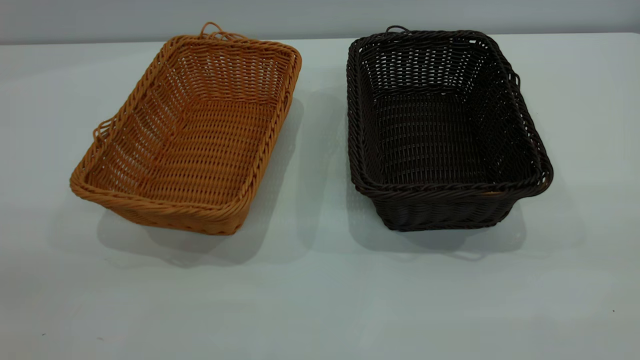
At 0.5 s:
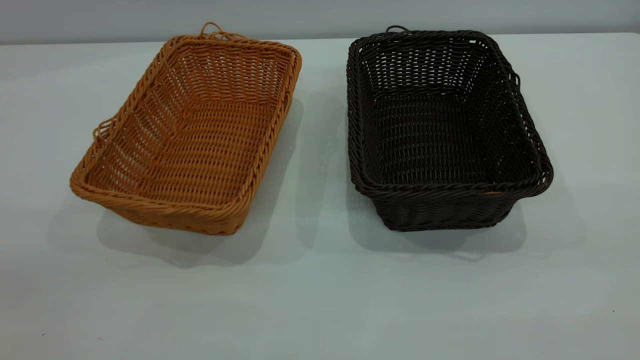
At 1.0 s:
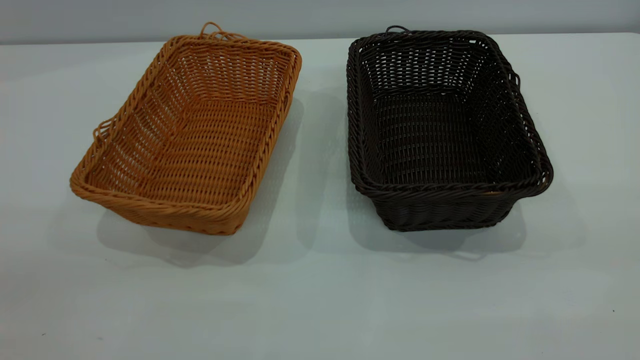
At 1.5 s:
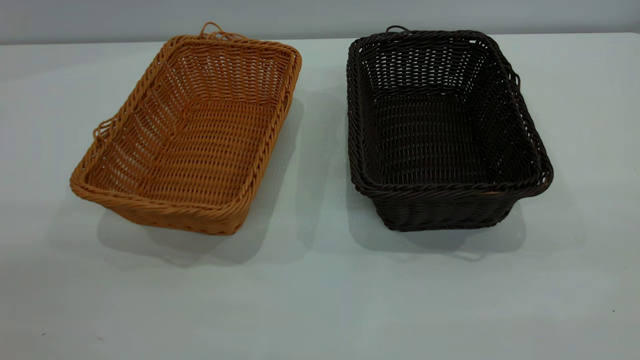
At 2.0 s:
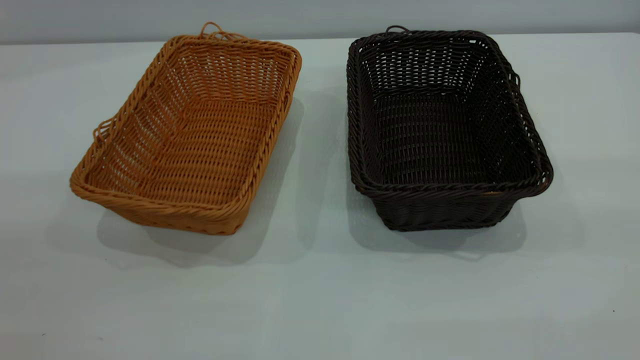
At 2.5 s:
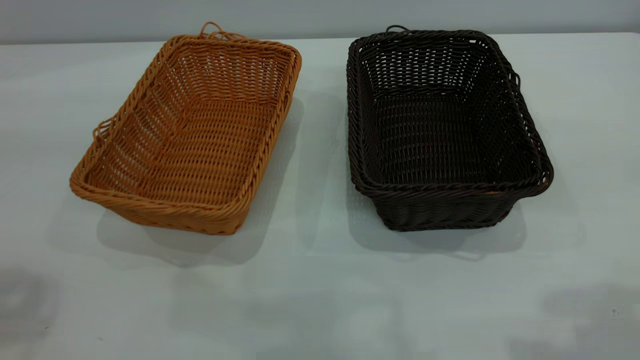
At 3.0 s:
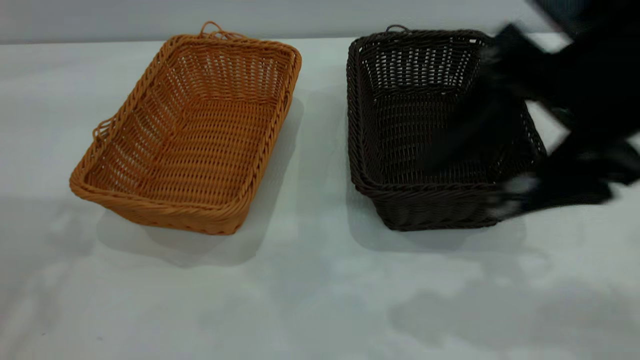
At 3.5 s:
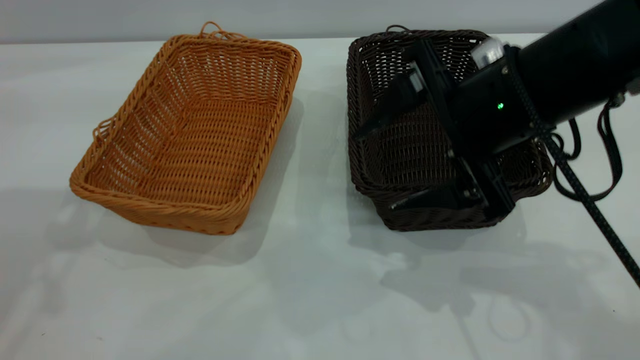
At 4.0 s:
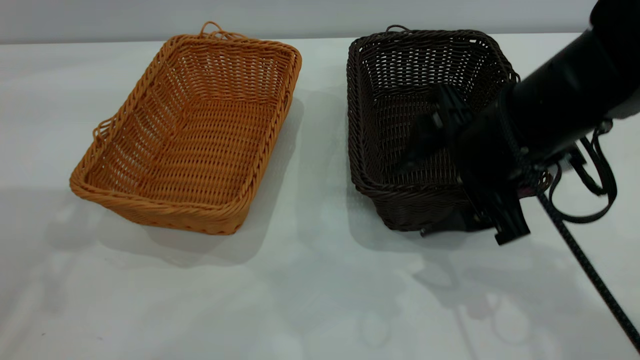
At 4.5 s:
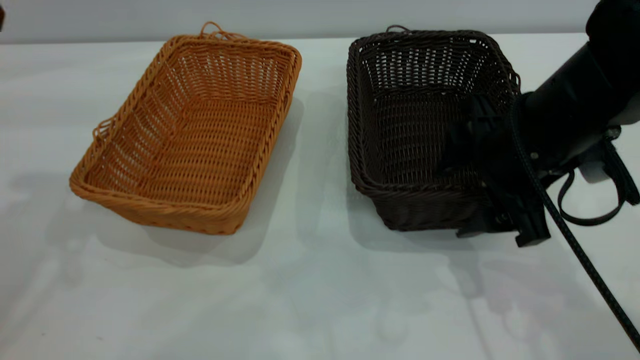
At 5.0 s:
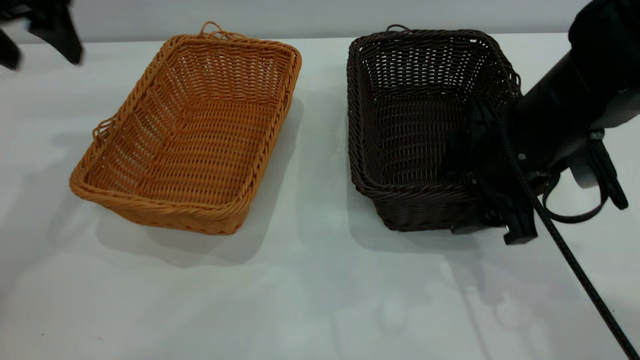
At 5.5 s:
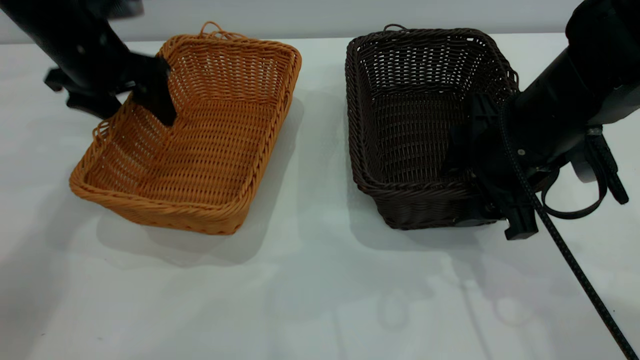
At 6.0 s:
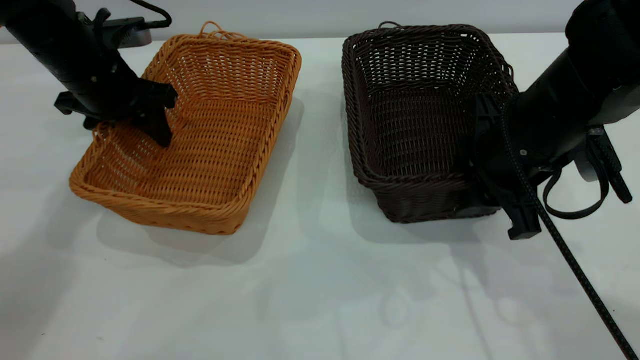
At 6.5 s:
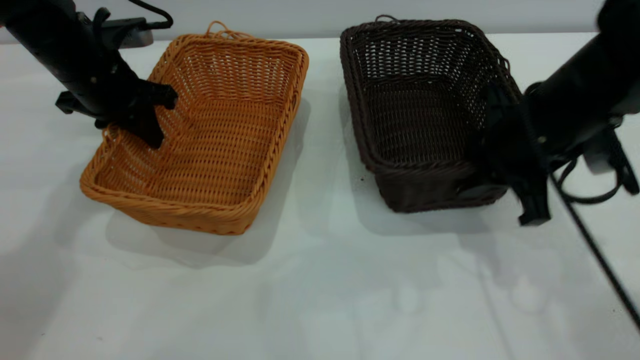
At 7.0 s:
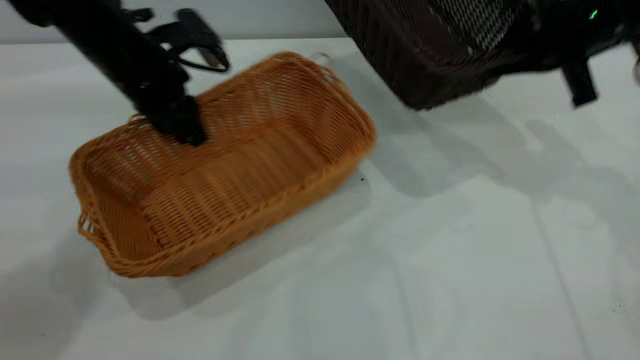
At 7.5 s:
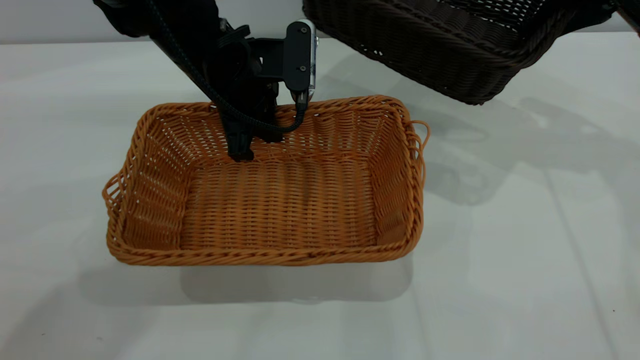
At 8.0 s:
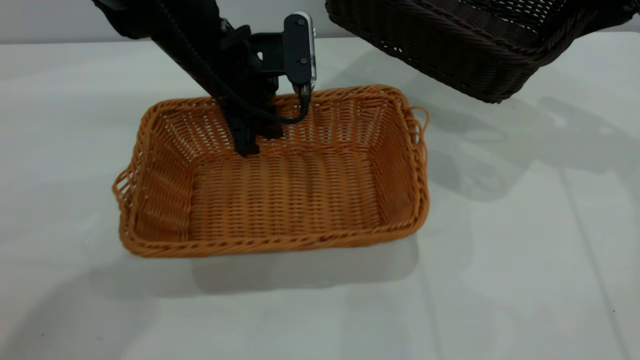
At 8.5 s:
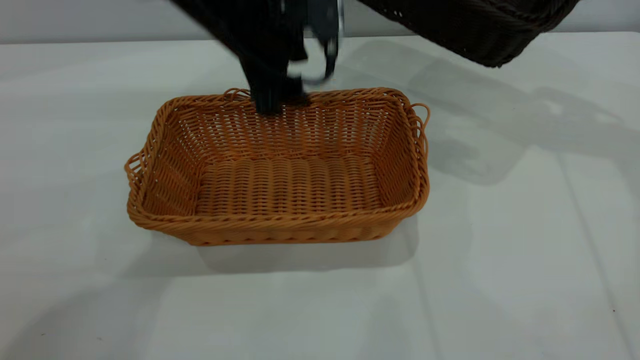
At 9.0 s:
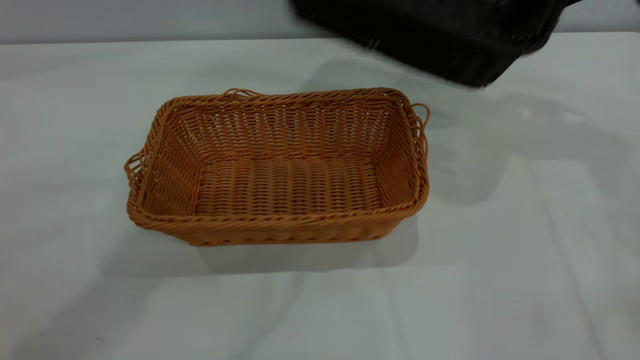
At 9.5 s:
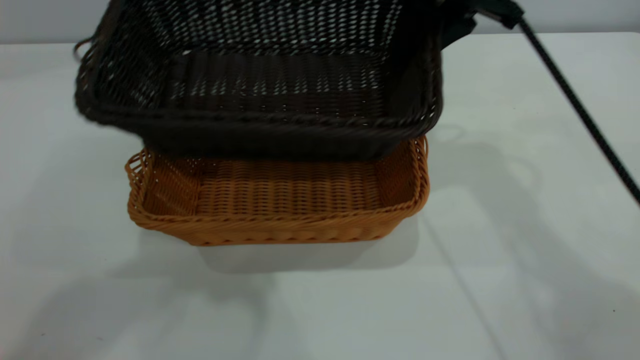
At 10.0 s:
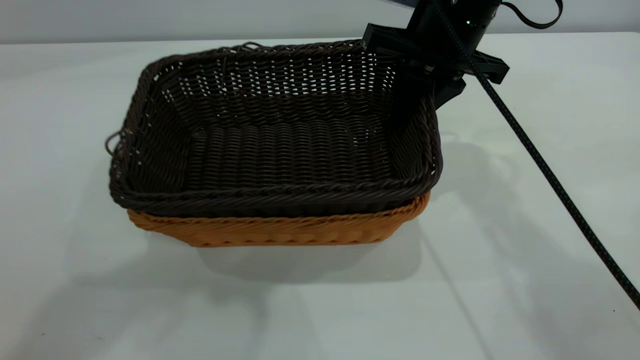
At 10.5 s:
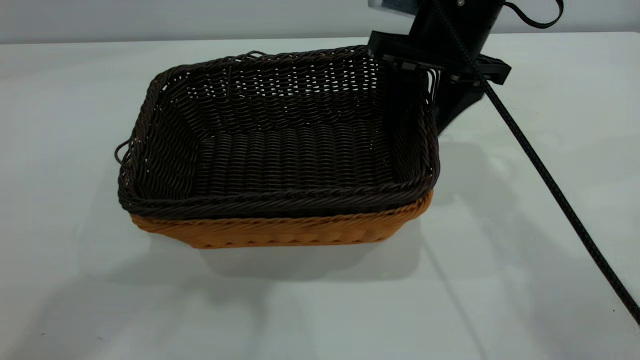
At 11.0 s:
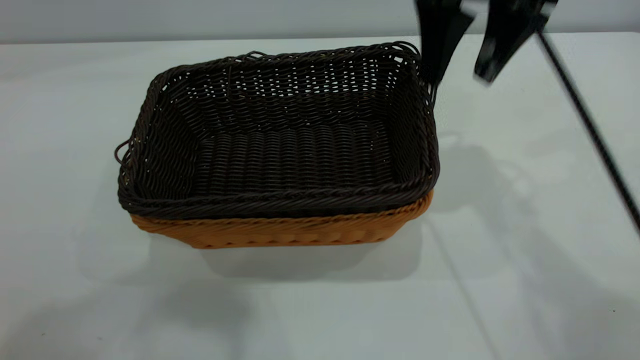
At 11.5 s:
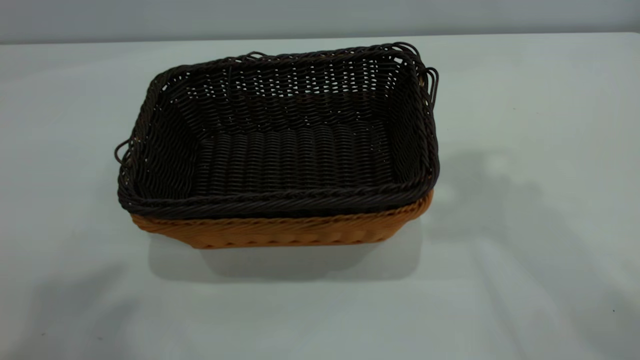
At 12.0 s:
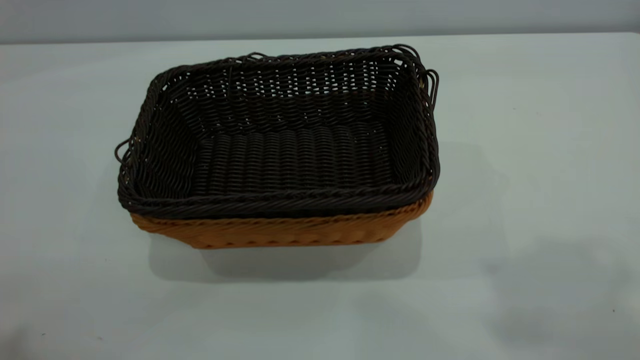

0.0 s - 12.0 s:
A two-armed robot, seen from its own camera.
Task of the whole recording: the left gripper grasp the brown basket and place it in the center of the table, the right gripper grasp the black basket and place it inside the brown one.
Step, 0.0 s - 6.5 s: Pick up the light basket with the right gripper.
Step, 7.0 s - 8.5 s: Place the light-colored basket in the center.
Step, 9.0 s - 11.0 s: Place the dark basket on top of the light basket.
2.0 s - 4.0 s: The right gripper goes some 35 cm forward, downward and to the left.
4.0 s - 6.0 s: The right gripper closes its fingers. The left gripper moves downward and forward, roughly 25 cm, and closes its fingers.
6.0 s - 8.0 s: The left gripper travels to the right by some 15 cm, and closes and opens again. The right gripper shifts approximately 20 cm to the right, forward and upward.
8.0 s - 10.0 s: The right gripper is displaced to the left by some 20 cm. Meanwhile the left gripper heads upward and backward, covering about 40 cm.
10.0 s - 12.0 s: The right gripper goes approximately 40 cm upward and backward, and opens. The left gripper is displaced backward and to the left by some 20 cm.

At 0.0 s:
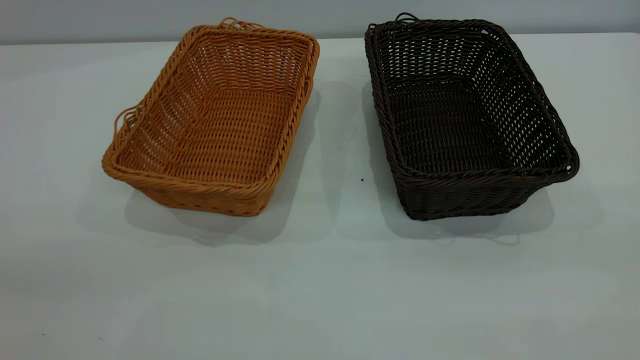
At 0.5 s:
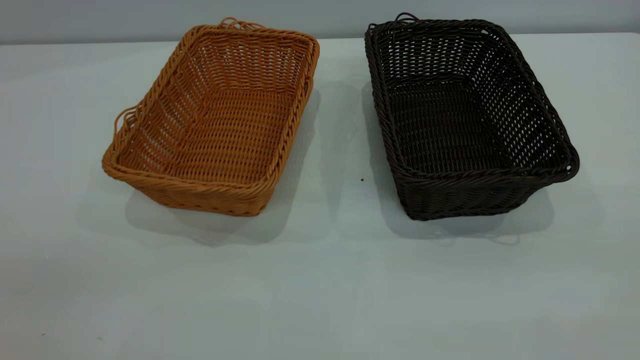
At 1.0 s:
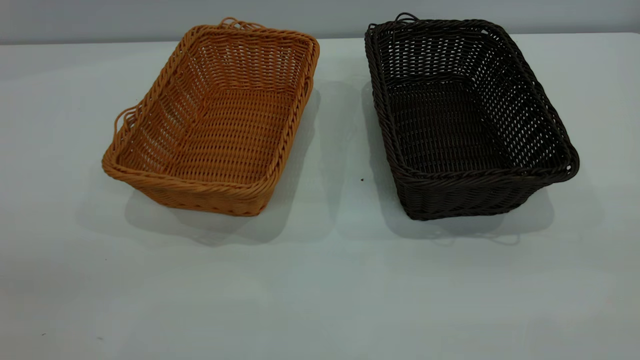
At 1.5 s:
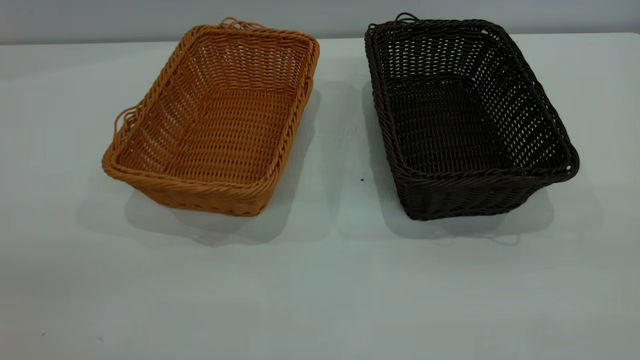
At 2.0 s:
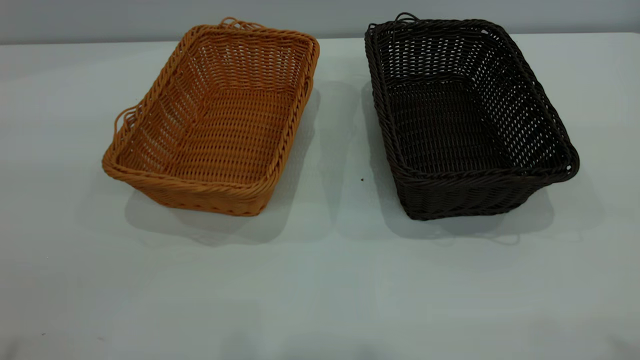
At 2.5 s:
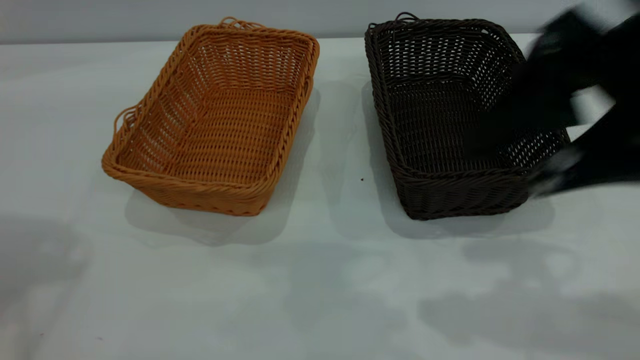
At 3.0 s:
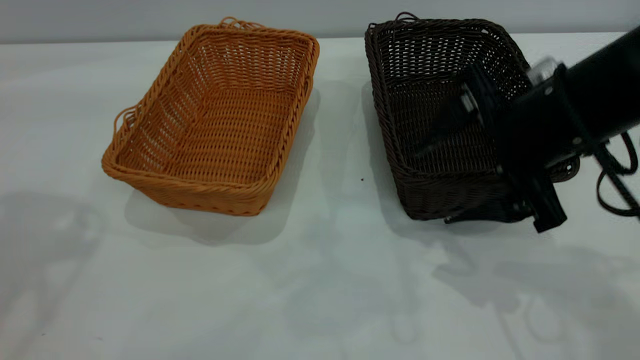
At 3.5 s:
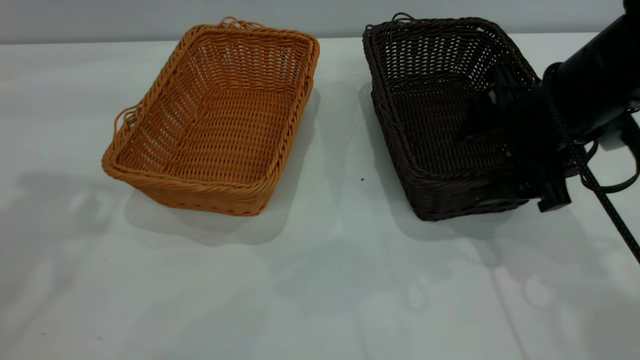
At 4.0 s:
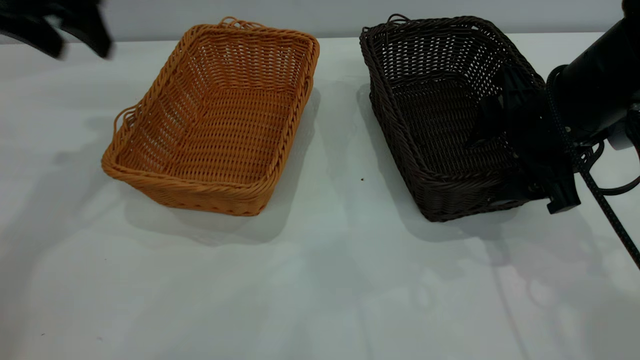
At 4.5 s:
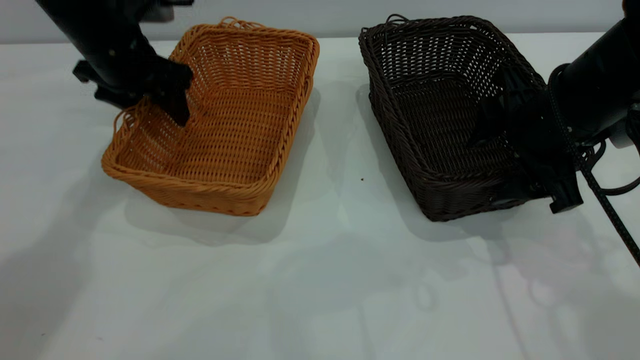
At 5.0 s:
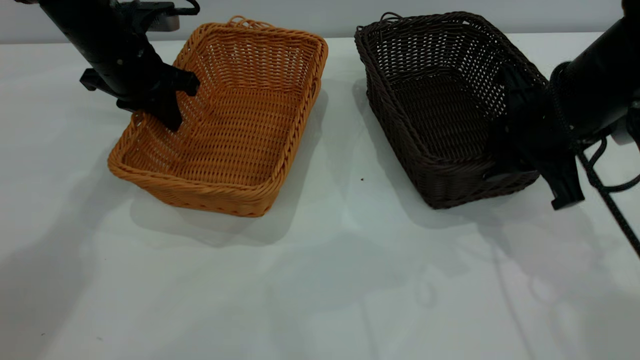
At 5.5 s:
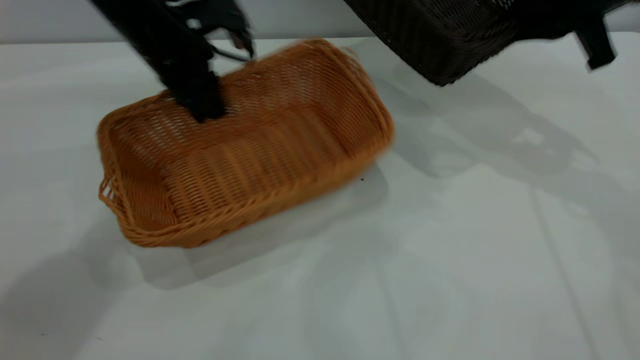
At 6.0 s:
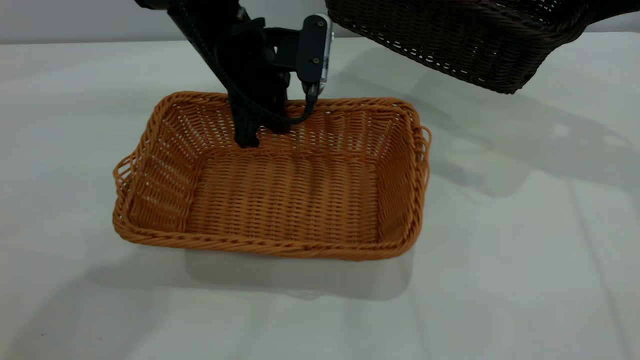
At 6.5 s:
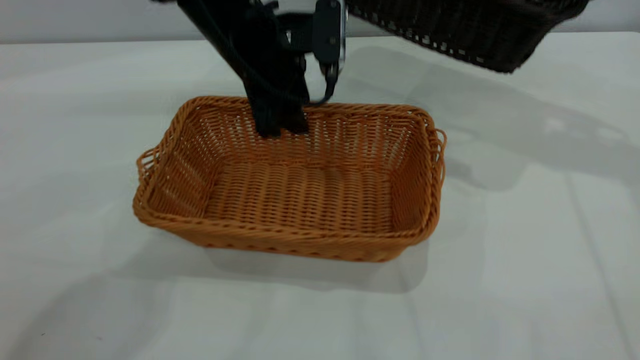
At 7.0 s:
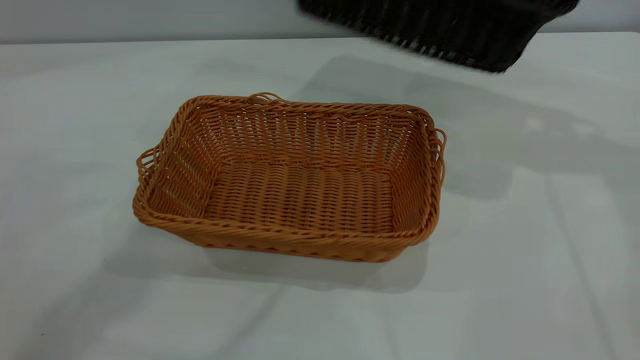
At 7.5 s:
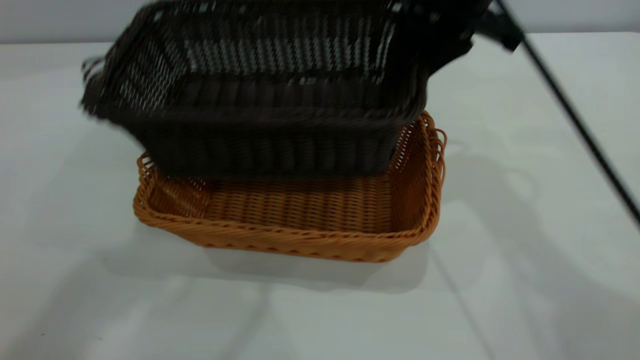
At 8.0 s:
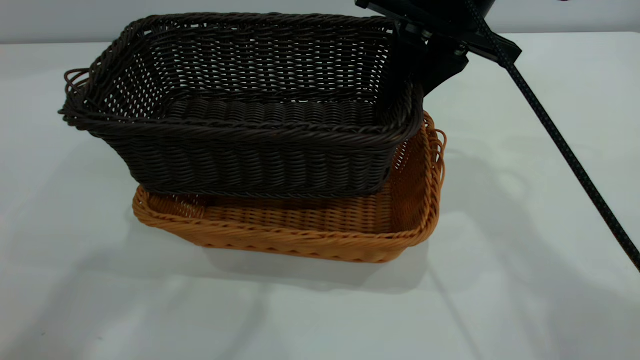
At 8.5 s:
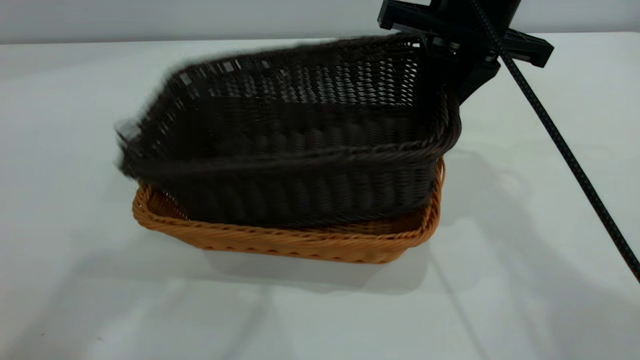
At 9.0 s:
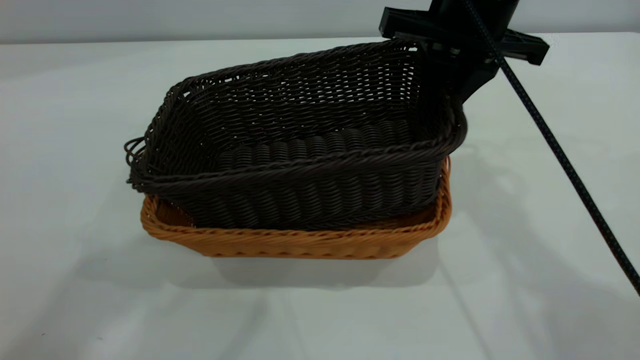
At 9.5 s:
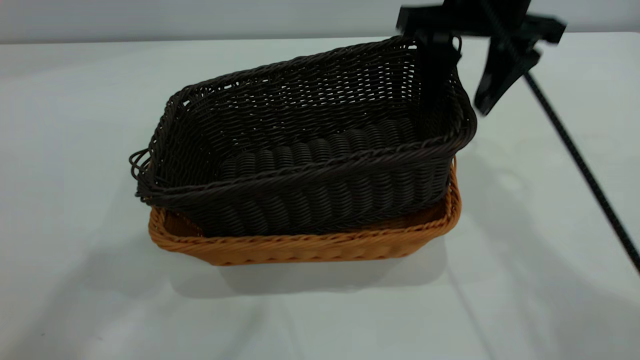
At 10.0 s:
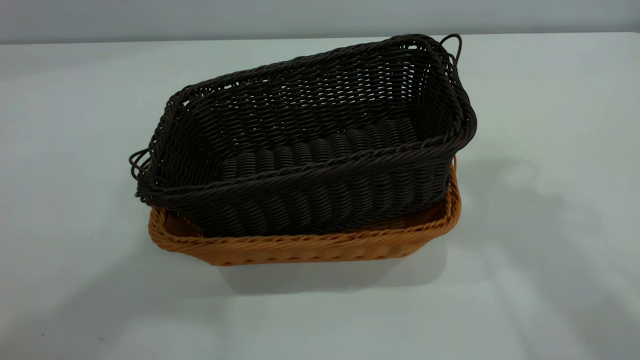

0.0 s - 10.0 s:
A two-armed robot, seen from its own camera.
Task of the whole recording: the left gripper grasp the brown basket and place it in the center of the table, the right gripper grasp the black basket and place it inside the brown one.
Step, 0.0 s - 5.0 s: Pick up the light basket with the right gripper.
Step, 5.5 s - 6.5 s: Place the light-colored basket in the center.
Step, 7.0 s - 9.5 s: Place the dark basket on top of the light basket.
2.0 s - 4.0 s: The left gripper goes some 35 cm forward and downward, while the right gripper heads downward and forward, covering approximately 30 cm.
4.0 s - 6.0 s: The left gripper heads to the right and downward, covering some 20 cm, and closes up. Meanwhile the right gripper moves upward, to the right and forward, some 20 cm, and closes.
6.0 s - 8.0 s: The left gripper moves upward, some 35 cm, and opens up; the right gripper is displaced to the left by roughly 20 cm.
8.0 s - 10.0 s: The right gripper travels upward by some 20 cm, and opens up; the left gripper moves upward and backward, roughly 10 cm.
